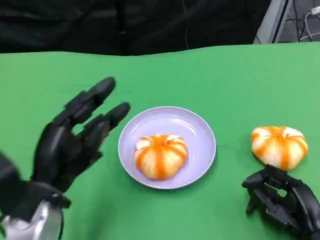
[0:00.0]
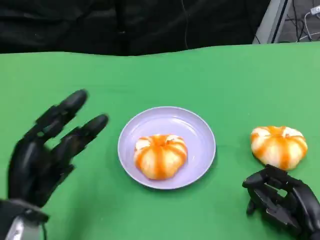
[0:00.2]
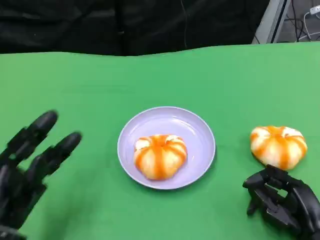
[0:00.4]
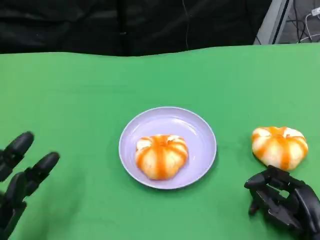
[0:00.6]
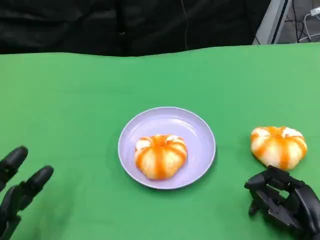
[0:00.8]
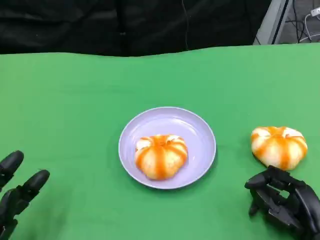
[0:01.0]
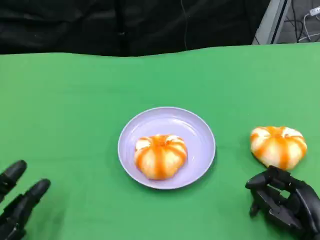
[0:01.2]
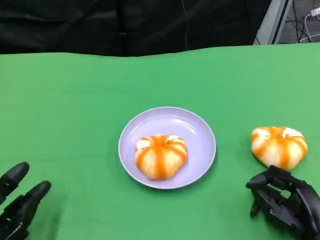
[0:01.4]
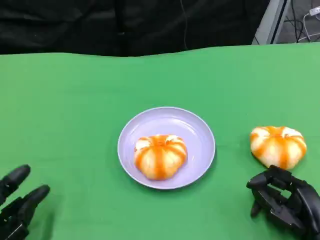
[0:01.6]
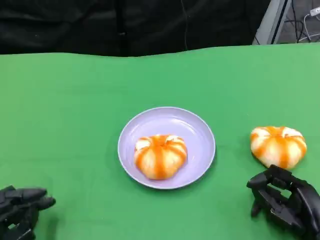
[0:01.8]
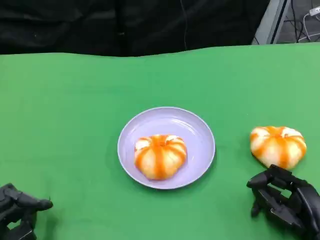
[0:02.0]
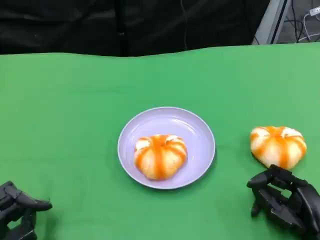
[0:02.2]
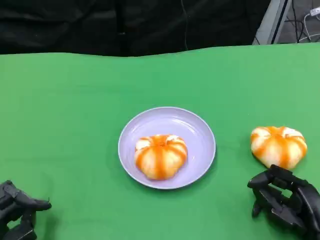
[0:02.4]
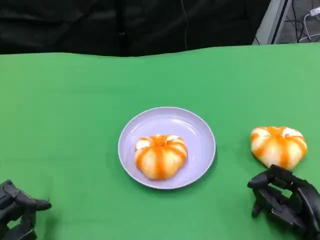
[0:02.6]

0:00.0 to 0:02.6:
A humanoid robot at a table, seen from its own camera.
Task of the whole recording: Grasp the bread from the table and place it into the plate.
0:00.0 to 0:01.2: The left hand shifts about 15 cm downward, backward and to the left.
0:01.2 to 0:02.6: The hands move only a little.

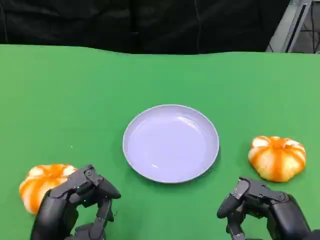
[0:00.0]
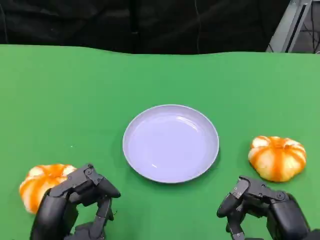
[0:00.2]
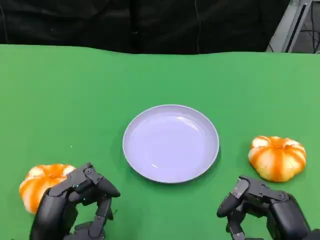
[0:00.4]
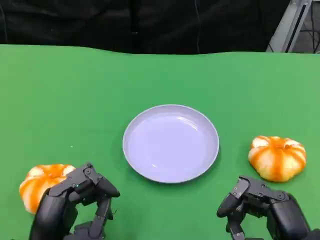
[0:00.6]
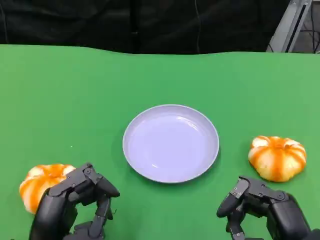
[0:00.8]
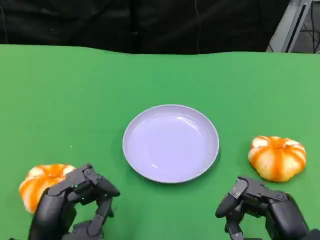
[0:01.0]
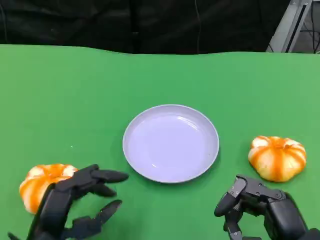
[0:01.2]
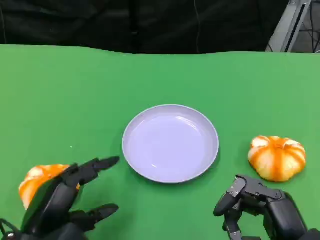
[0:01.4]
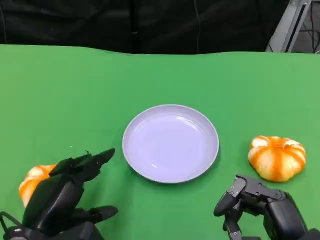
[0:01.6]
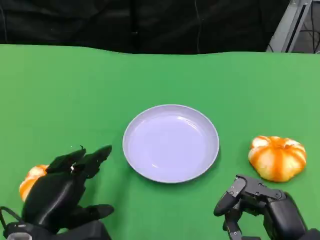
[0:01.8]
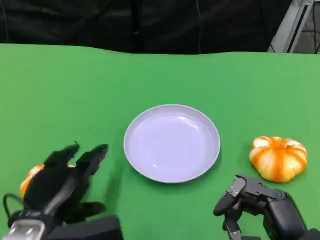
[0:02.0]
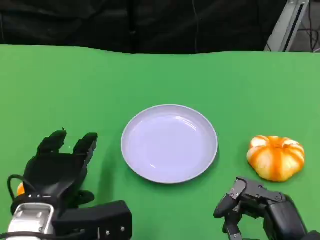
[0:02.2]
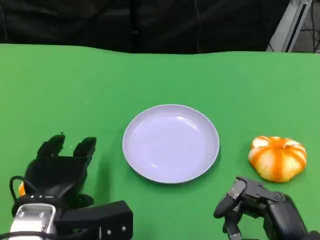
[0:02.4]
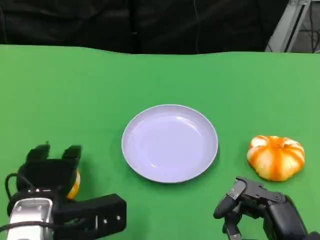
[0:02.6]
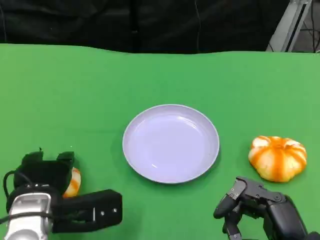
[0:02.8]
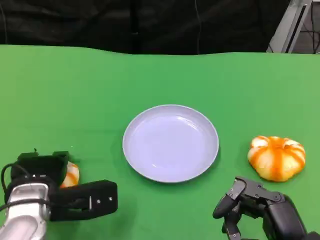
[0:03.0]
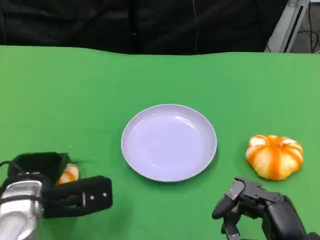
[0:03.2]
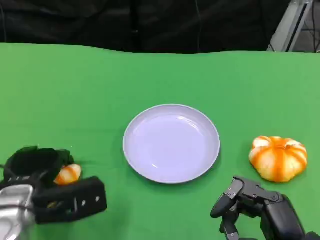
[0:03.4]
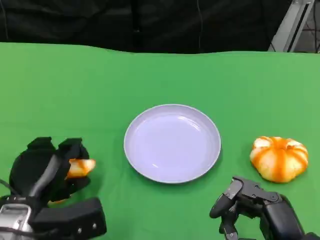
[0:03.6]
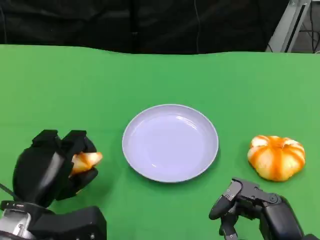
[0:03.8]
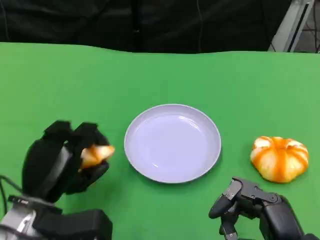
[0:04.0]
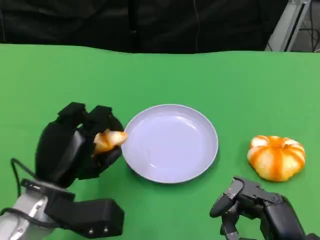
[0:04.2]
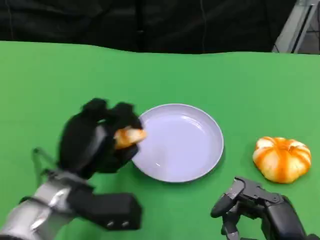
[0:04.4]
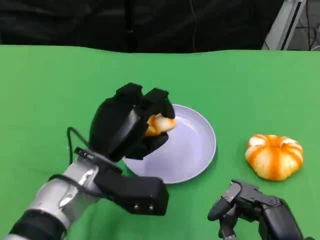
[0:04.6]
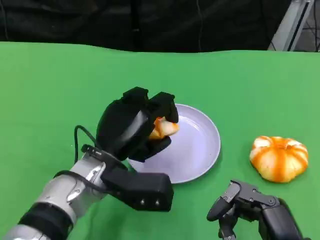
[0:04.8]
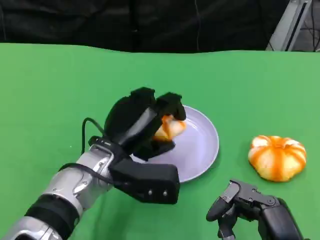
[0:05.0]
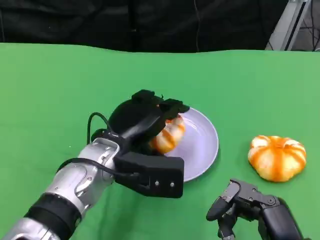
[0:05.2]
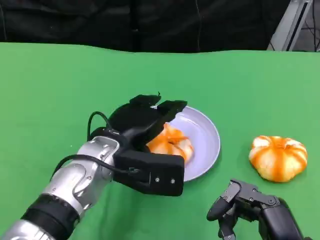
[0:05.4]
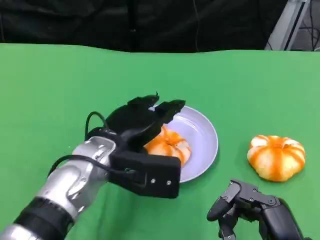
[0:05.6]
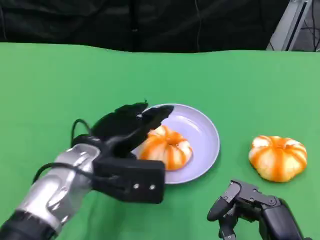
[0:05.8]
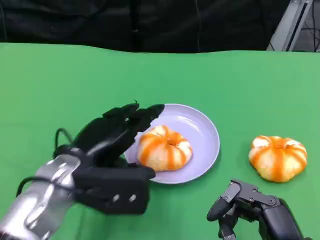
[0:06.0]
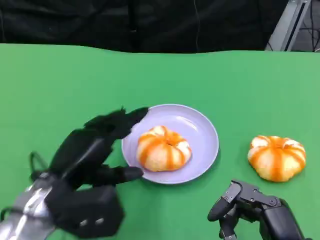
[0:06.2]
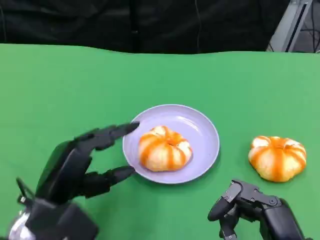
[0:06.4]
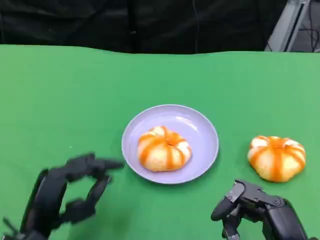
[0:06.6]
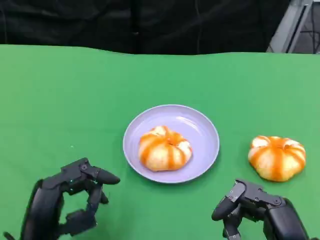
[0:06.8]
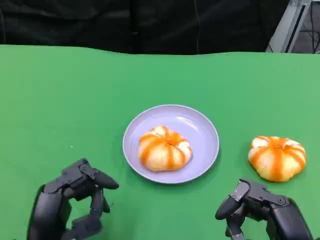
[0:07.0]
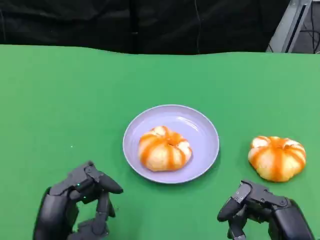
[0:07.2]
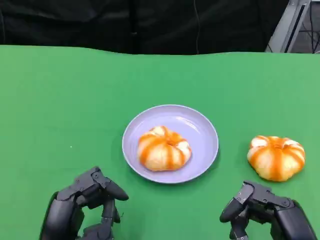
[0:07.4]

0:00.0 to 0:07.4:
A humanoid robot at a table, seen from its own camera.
Task of the whole recording: Grasp the bread from the table and place it into the plate.
0:01.4 to 0:03.0: The left hand shifts about 10 cm forward.
0:03.0 to 0:04.4: The left hand moves to the right, about 5 cm.
0:06.0 to 0:07.4: The left hand heads backward and downward, covering roughly 10 cm.

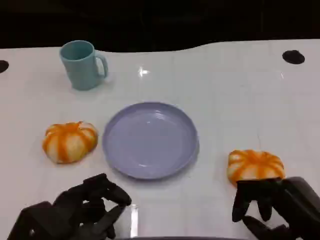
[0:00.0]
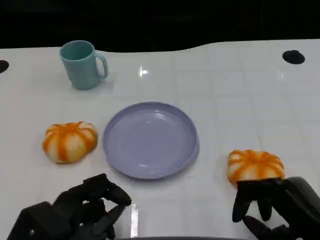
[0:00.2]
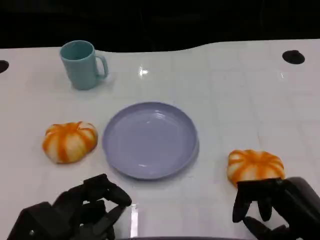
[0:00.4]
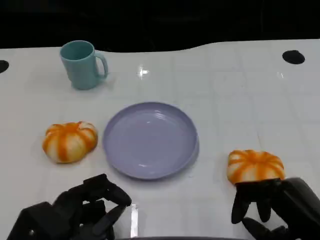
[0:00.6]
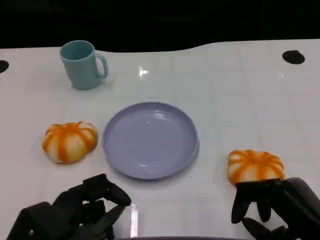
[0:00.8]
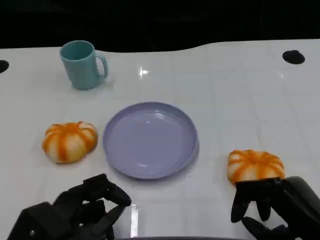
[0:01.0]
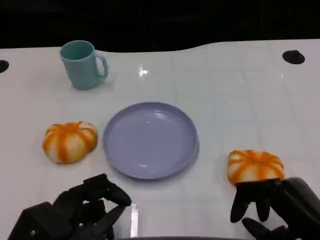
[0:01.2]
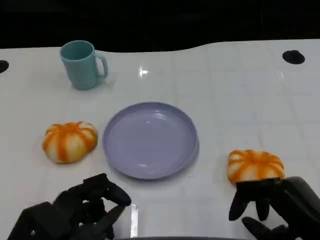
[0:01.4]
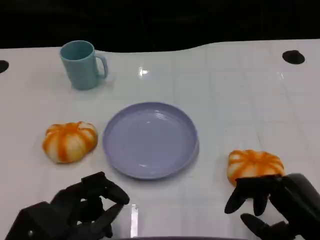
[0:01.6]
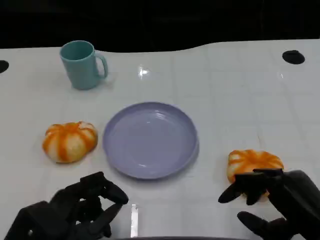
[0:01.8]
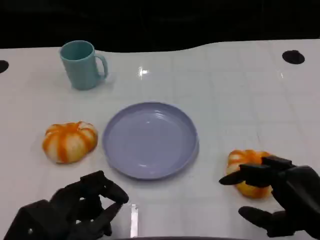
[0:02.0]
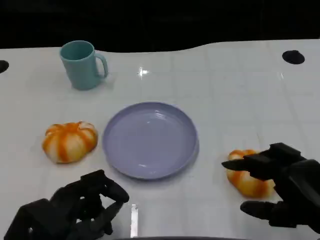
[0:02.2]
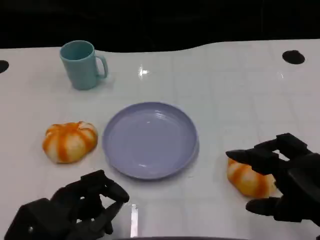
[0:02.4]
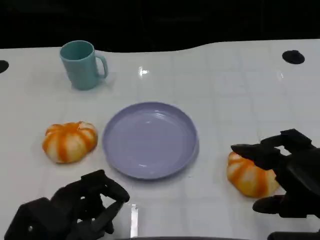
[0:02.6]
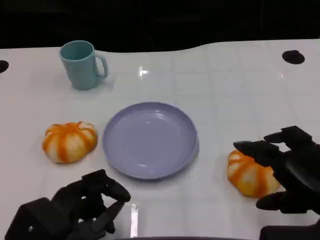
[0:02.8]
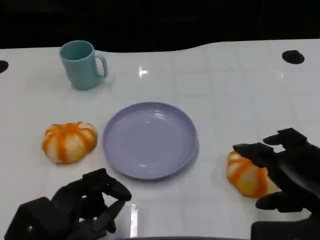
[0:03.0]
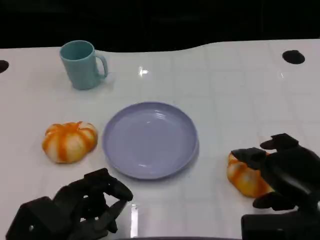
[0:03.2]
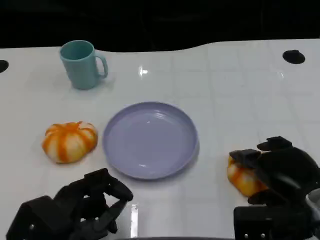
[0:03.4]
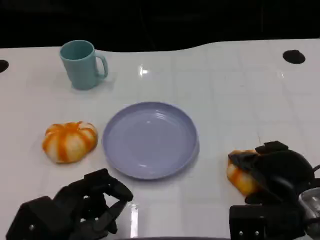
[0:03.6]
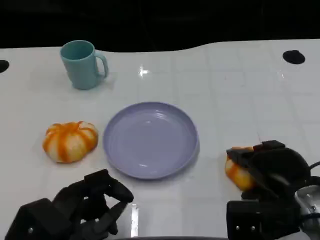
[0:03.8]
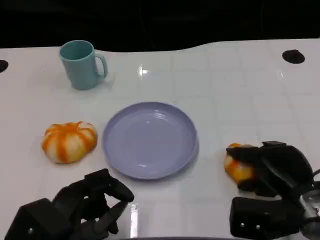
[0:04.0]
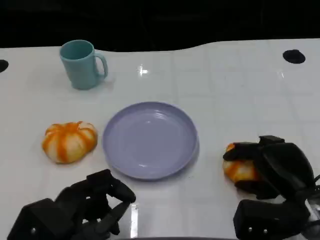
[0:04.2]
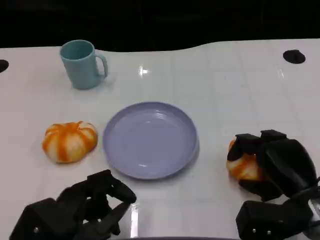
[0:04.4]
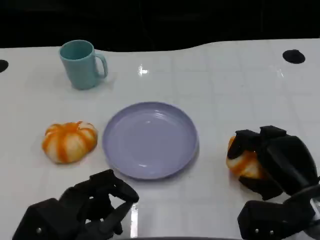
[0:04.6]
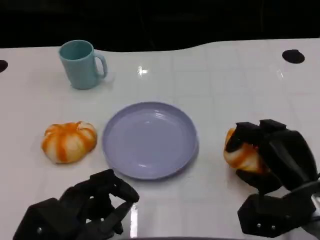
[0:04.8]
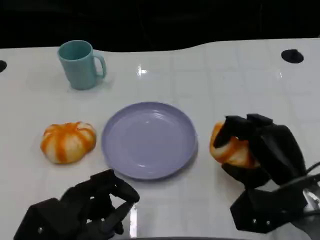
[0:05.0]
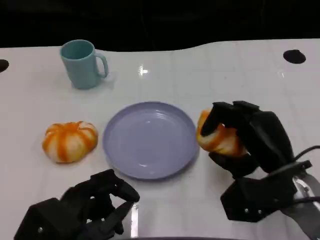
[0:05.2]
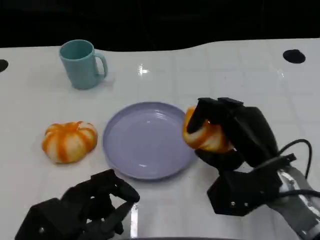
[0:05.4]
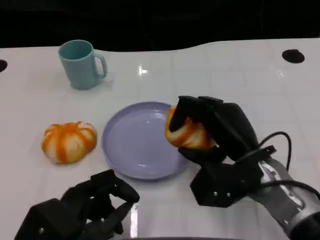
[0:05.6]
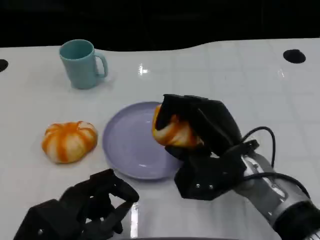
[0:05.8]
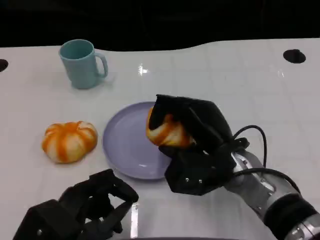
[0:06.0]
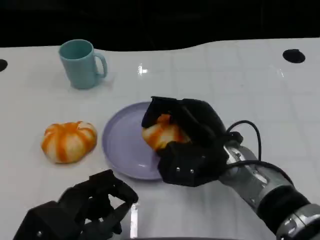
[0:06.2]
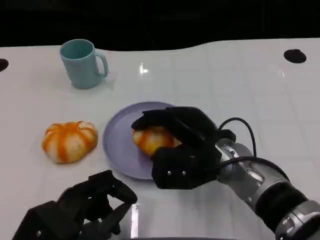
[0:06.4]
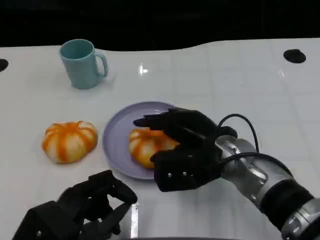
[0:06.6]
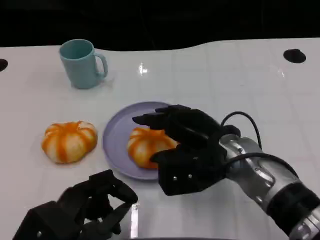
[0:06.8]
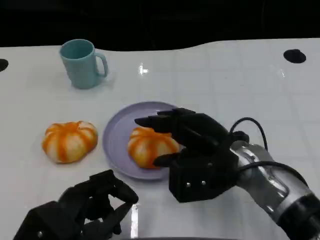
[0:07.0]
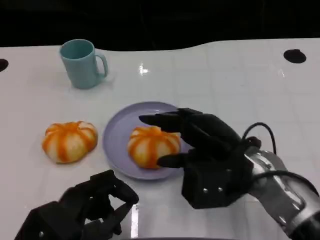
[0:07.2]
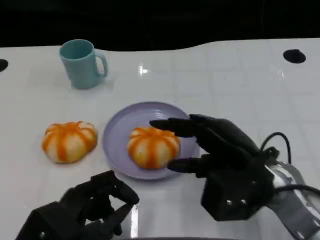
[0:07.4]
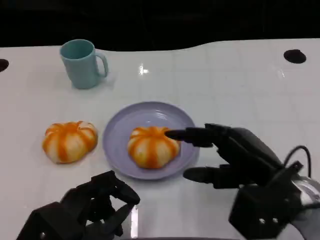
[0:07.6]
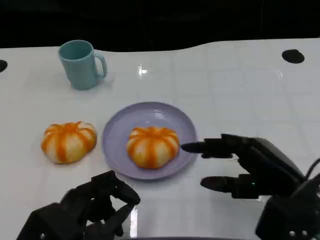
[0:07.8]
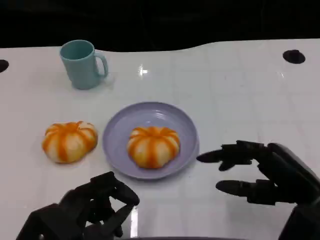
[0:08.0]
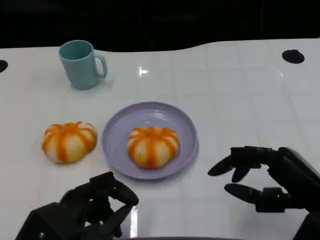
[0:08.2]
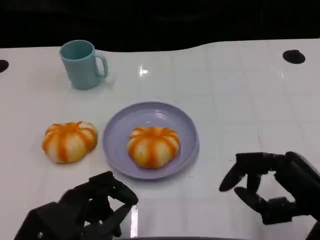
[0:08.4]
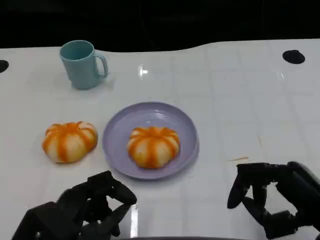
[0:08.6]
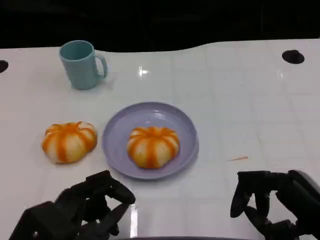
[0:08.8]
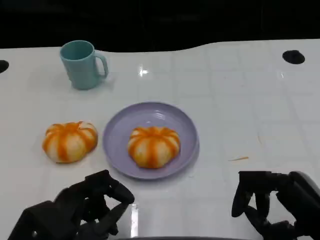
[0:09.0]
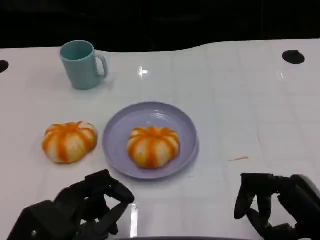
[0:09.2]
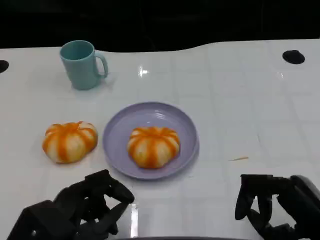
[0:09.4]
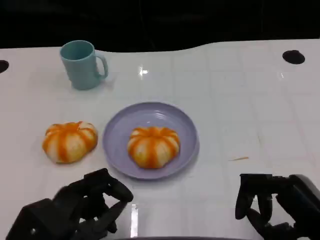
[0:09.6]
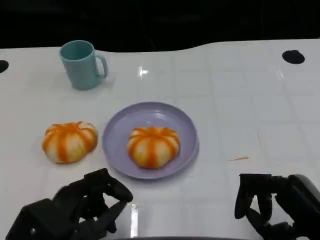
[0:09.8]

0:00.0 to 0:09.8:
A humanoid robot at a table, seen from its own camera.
Task of the whole recording: Grasp the bread from the table and place it into the plate.
0:00.0 to 0:01.4: Both hands stay put.
0:01.4 to 0:02.8: The right hand shifts some 5 cm upward.
0:02.8 to 0:04.2: The right hand shifts some 10 cm downward and forward.
0:04.2 to 0:05.6: The right hand is displaced to the left by about 10 cm.
0:07.0 to 0:08.4: The right hand shifts about 15 cm to the right and backward.
0:08.4 to 0:09.8: There are only small adjustments of the hands.

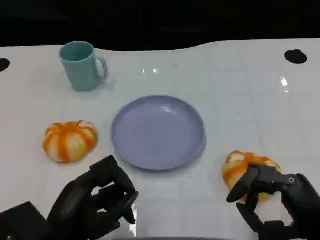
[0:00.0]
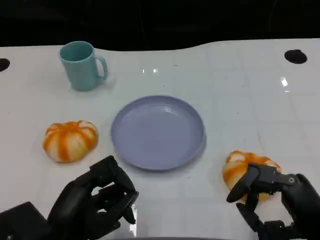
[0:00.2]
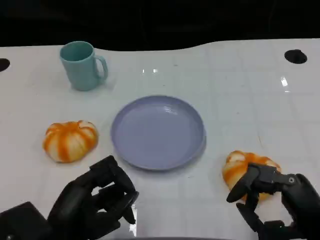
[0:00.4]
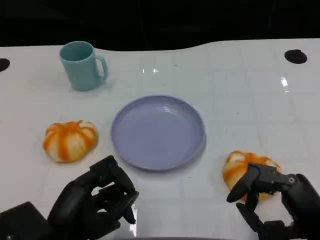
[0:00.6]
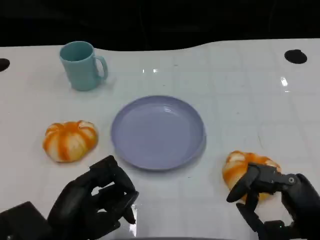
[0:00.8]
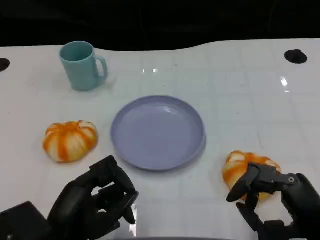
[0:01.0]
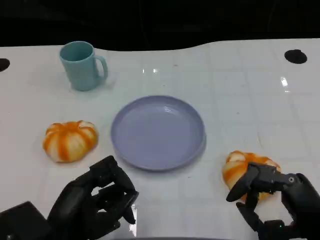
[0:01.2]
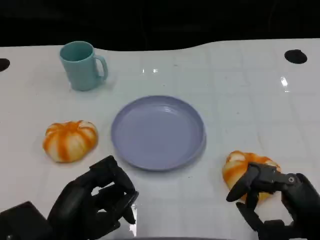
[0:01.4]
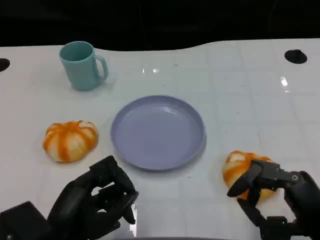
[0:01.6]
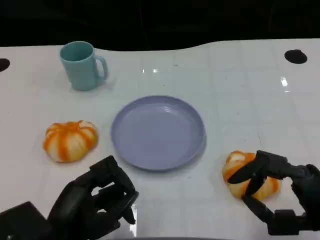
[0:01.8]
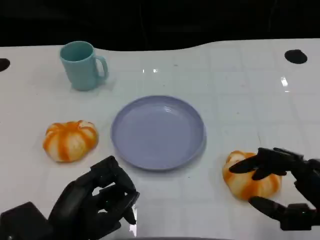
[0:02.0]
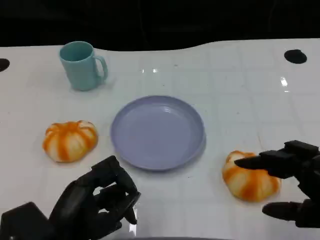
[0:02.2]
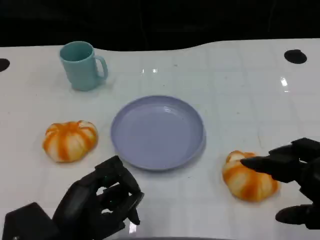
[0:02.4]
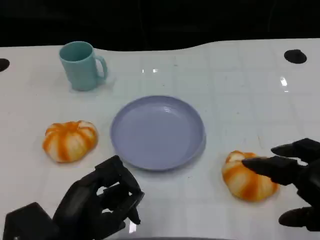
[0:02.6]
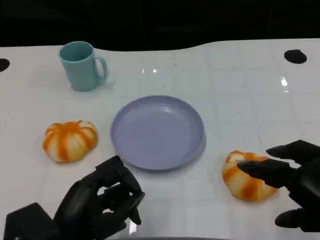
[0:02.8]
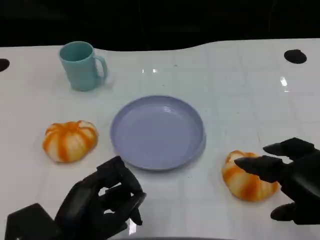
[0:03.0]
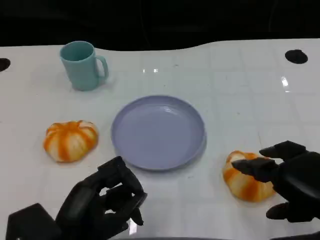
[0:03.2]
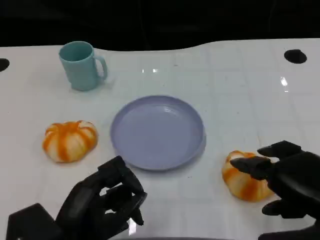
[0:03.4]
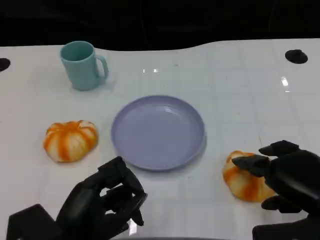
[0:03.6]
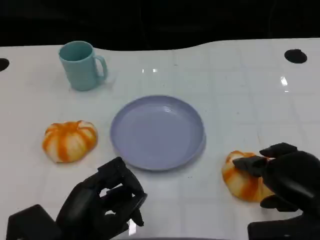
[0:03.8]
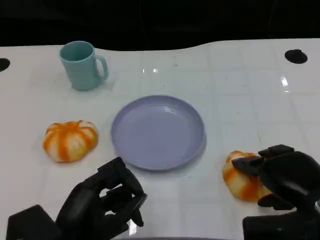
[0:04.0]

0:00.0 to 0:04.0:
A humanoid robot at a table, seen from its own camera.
Task of the whole recording: Grasp the bread from the table and place it into the plate.
0:00.0 to 0:01.4: Both hands stay put.
0:01.4 to 0:02.6: The right hand travels upward by about 10 cm.
0:02.6 to 0:04.0: The right hand heads downward and forward, covering roughly 10 cm.
